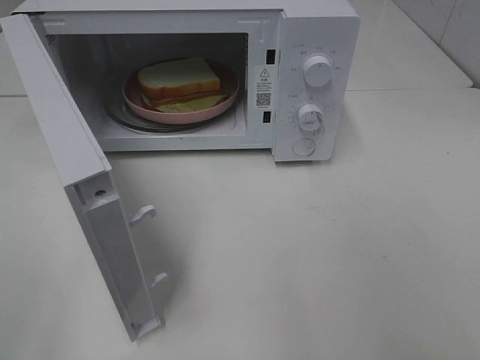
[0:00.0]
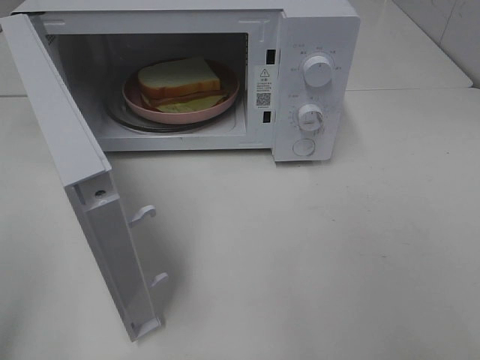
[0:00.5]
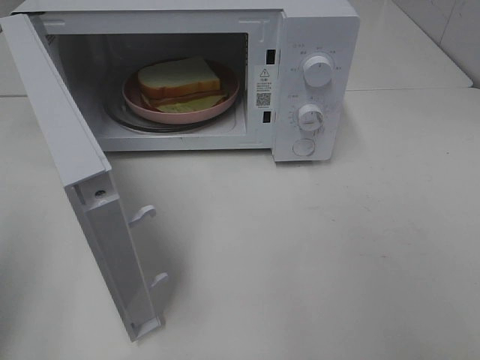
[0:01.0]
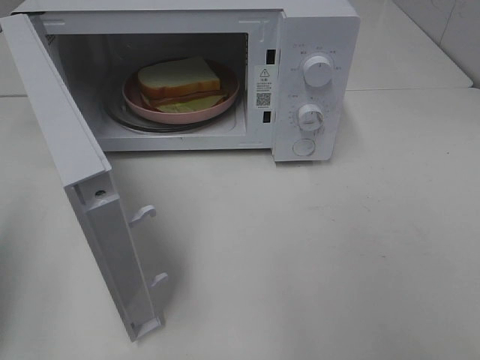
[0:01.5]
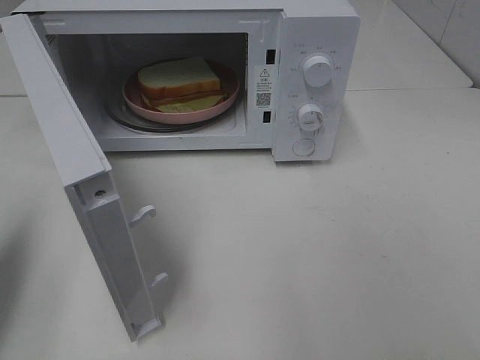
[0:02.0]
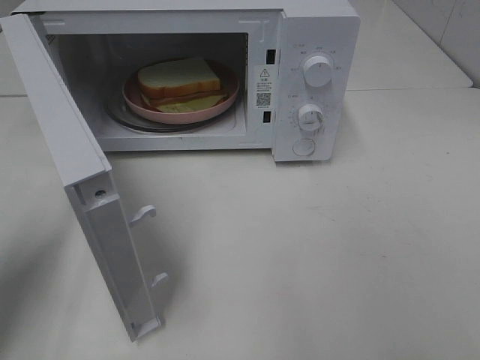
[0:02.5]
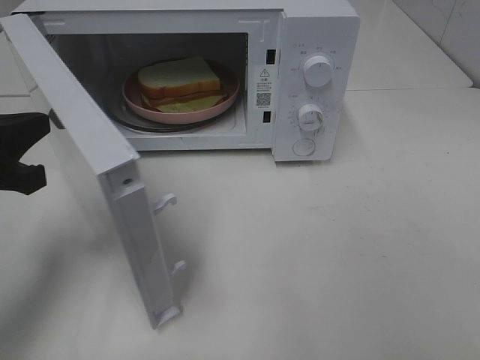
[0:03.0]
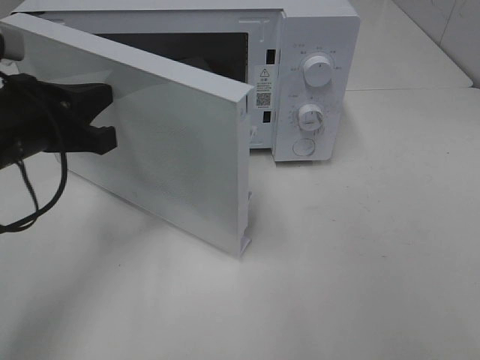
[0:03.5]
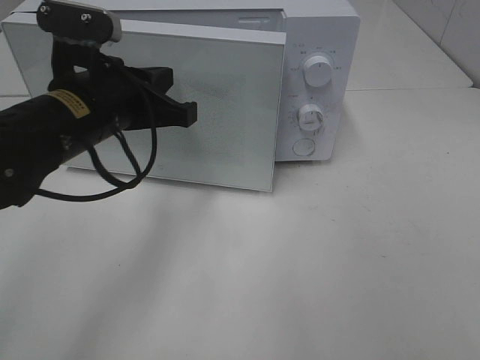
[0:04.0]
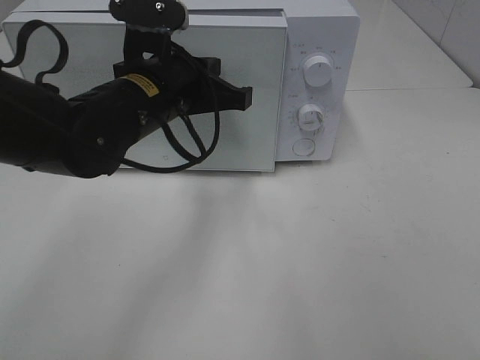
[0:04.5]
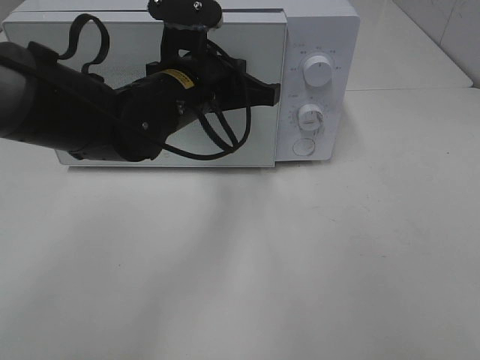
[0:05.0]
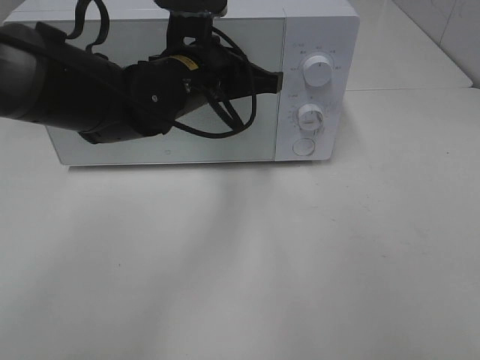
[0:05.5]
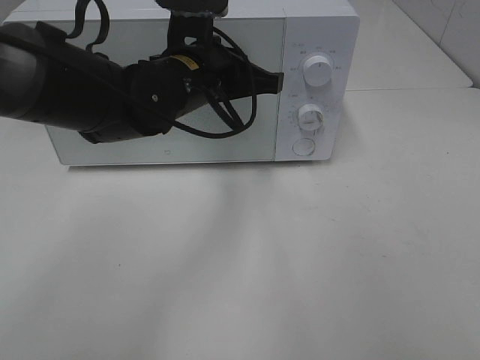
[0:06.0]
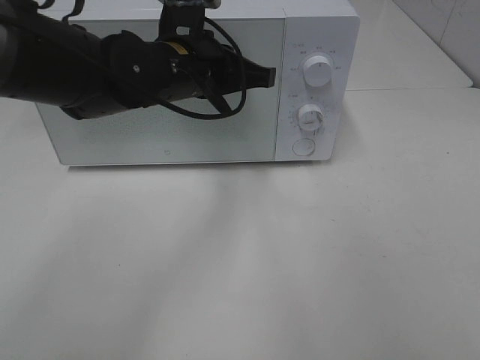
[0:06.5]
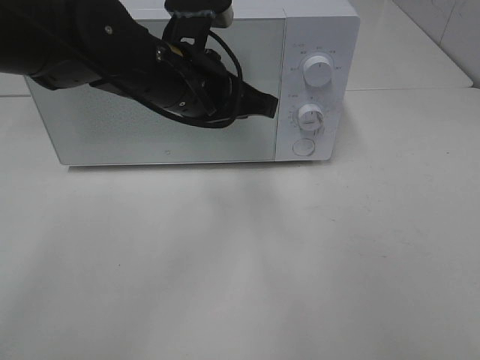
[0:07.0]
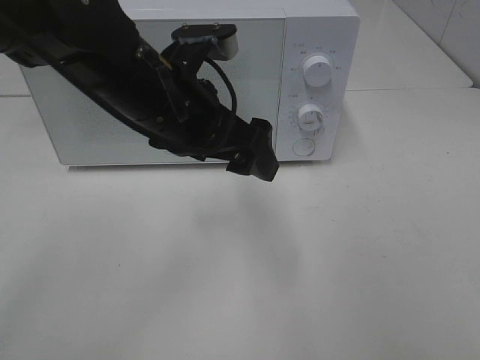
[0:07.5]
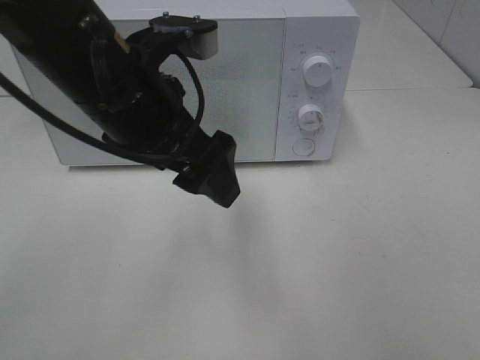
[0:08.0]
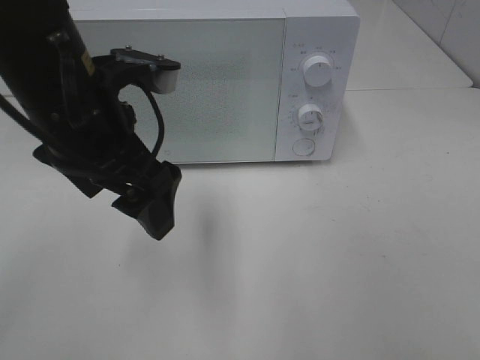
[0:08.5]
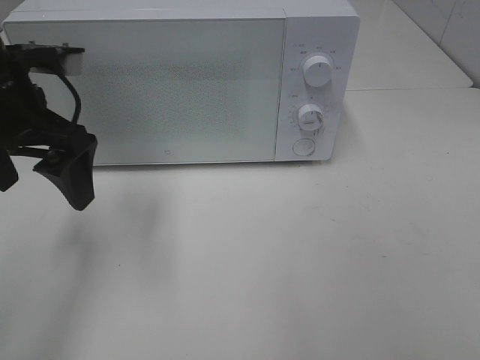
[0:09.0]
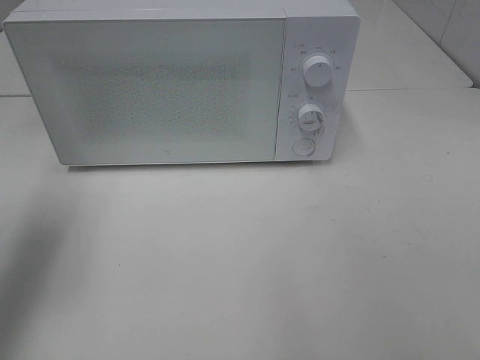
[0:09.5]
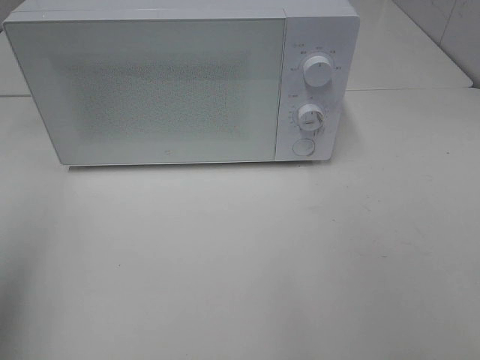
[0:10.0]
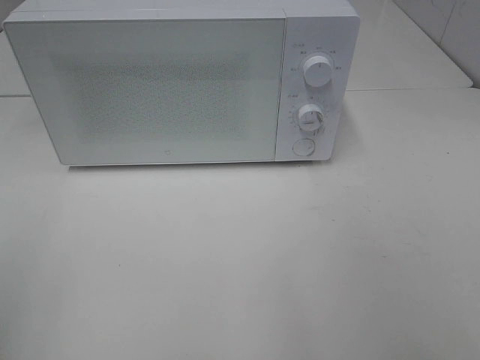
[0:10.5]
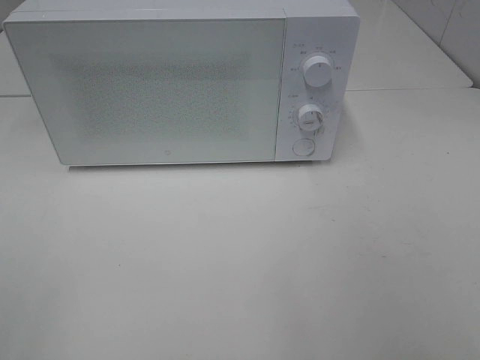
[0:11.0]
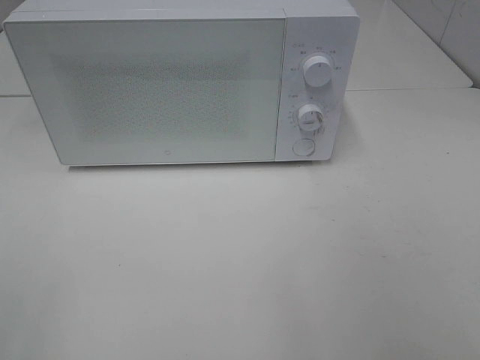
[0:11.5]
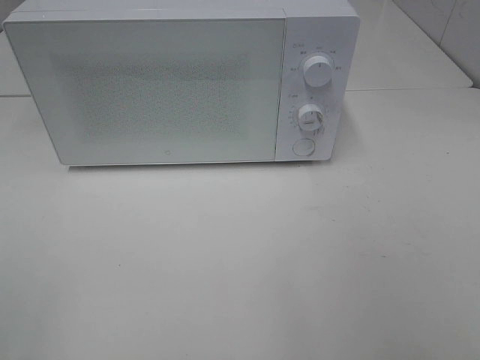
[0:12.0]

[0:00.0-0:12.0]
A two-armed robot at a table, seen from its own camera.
Task of the whole recording: Heat Sandwich.
Step, 0:00.0 to 0:07.0: Left hand: close the microwave door.
0:00.0 to 0:02.0: The left gripper heads forward, covering roughly 20 cm, and closes its fingers.
0:02.0 to 0:04.0: The left gripper travels to the right and forward by roughly 25 cm.
0:04.0 to 0:06.0: The left gripper moves to the right and forward, about 10 cm.
0:06.0 to 0:08.0: The left gripper goes approximately 10 cm backward and upward, and opens up.
0:08.0 to 0:10.0: The left gripper heads to the left and backward, covering about 25 cm.
0:10.0 to 0:12.0: The left gripper goes some 15 cm backward.

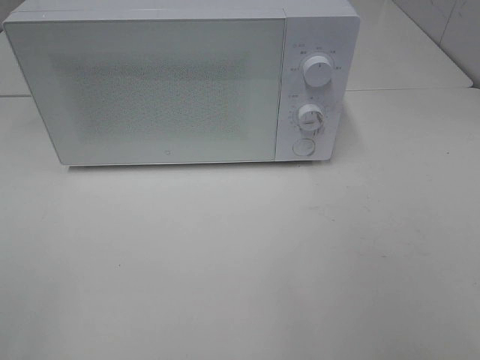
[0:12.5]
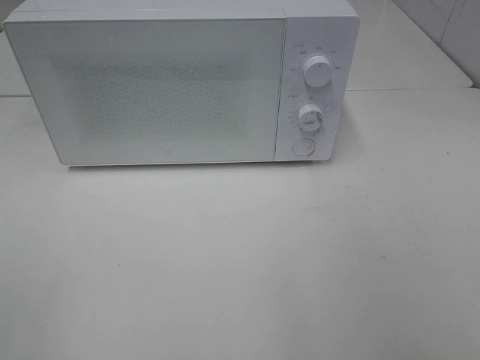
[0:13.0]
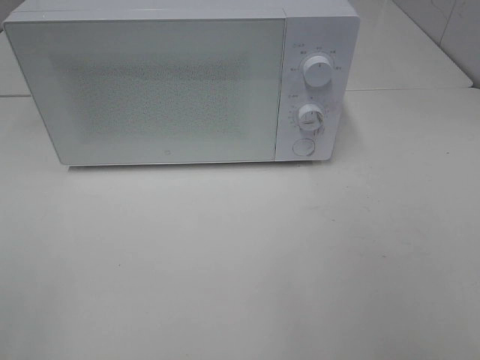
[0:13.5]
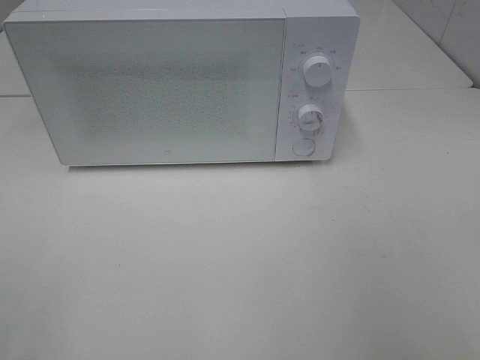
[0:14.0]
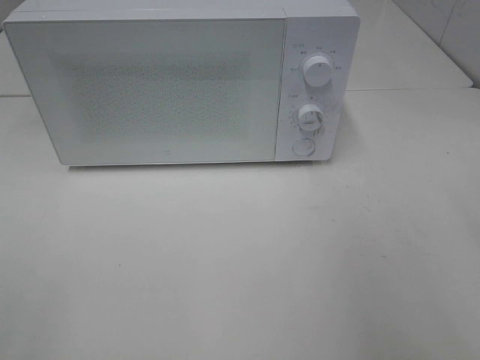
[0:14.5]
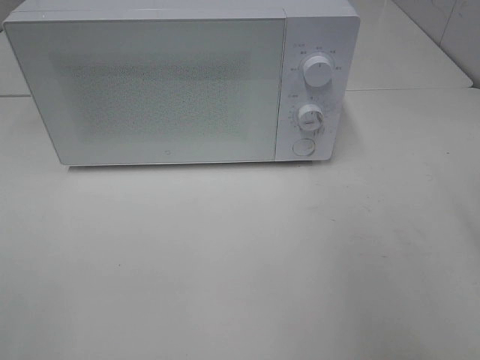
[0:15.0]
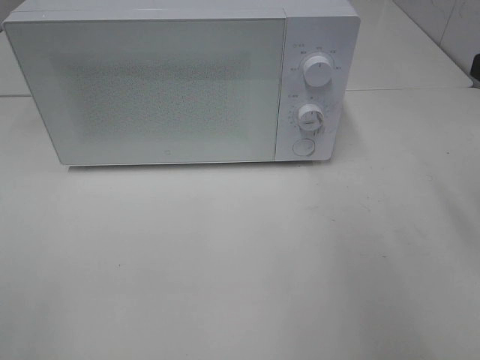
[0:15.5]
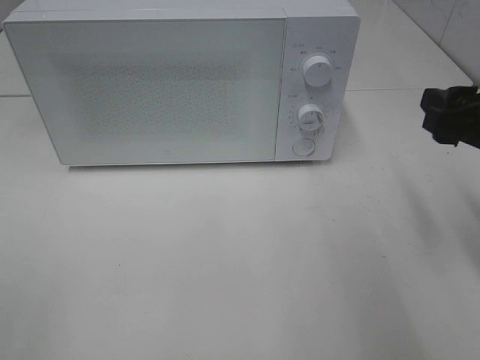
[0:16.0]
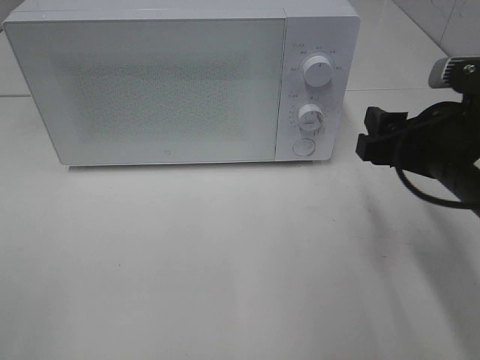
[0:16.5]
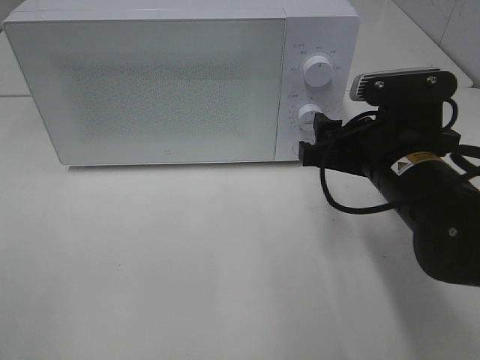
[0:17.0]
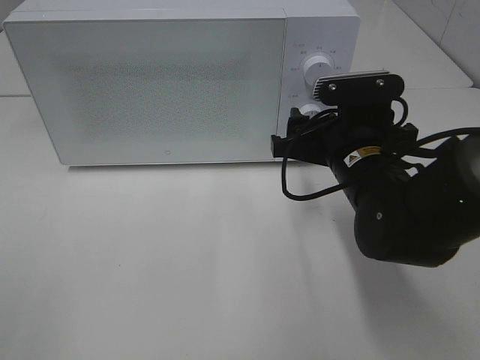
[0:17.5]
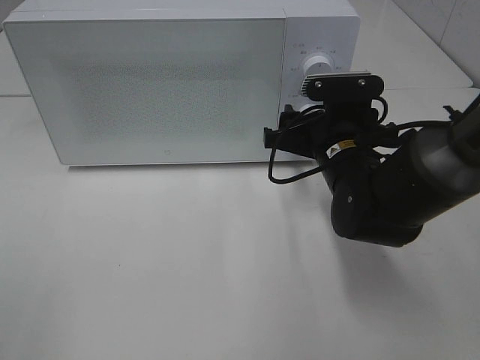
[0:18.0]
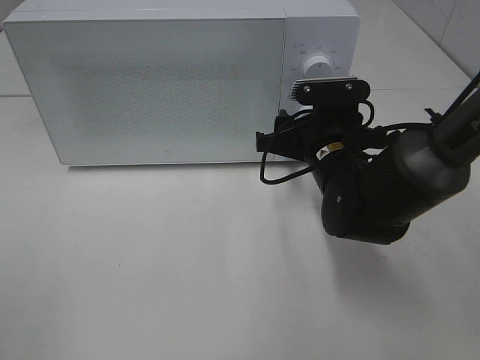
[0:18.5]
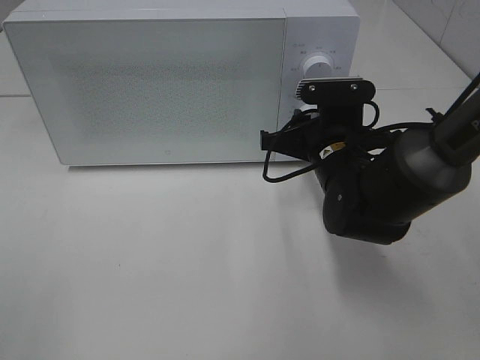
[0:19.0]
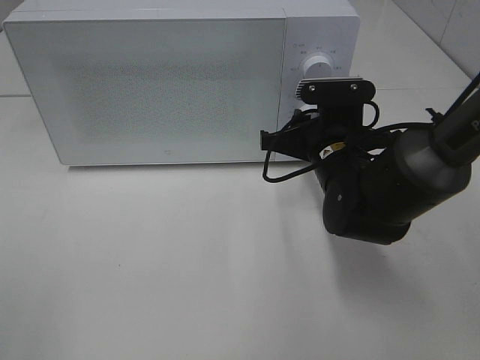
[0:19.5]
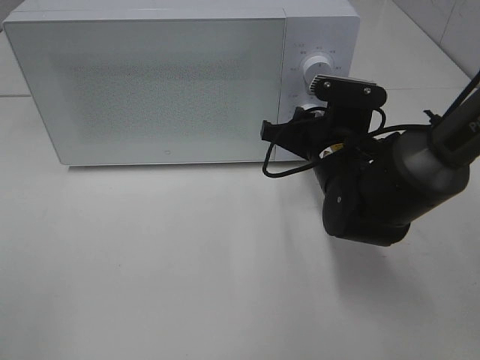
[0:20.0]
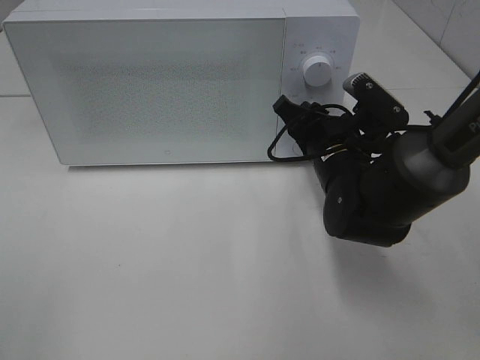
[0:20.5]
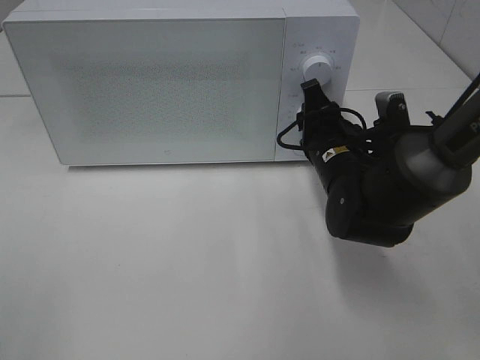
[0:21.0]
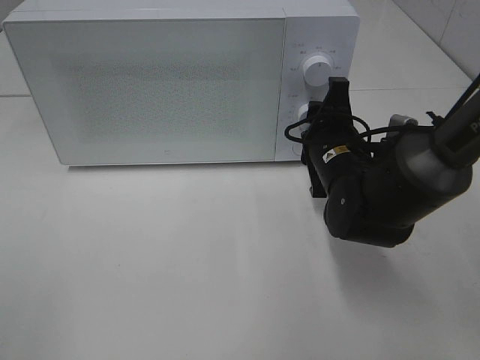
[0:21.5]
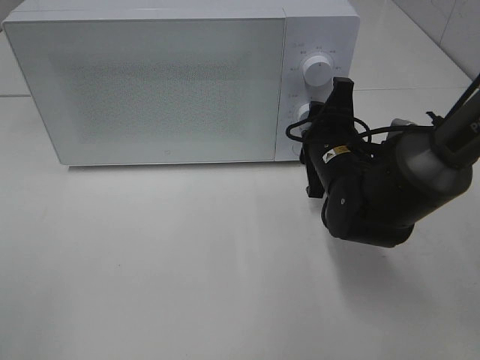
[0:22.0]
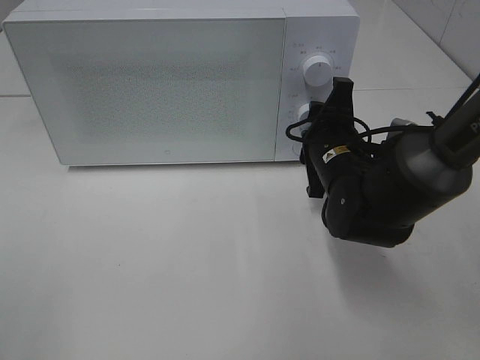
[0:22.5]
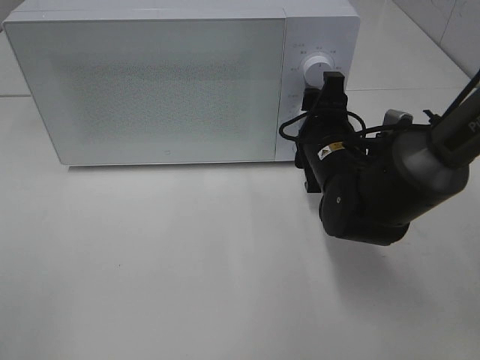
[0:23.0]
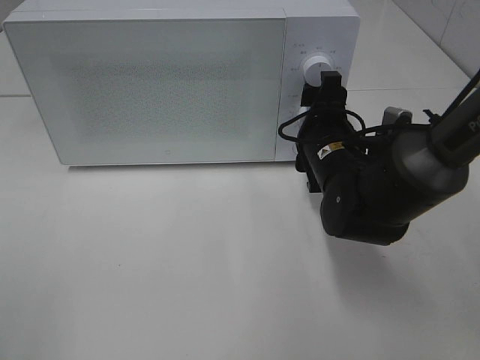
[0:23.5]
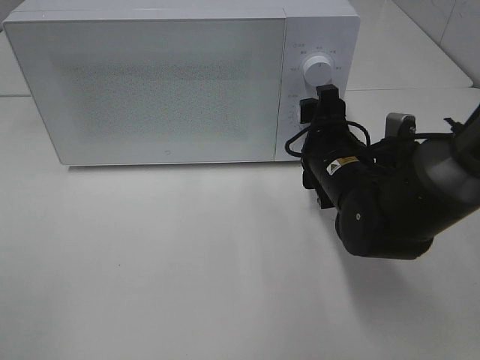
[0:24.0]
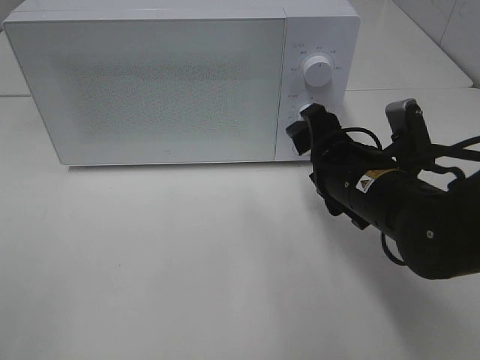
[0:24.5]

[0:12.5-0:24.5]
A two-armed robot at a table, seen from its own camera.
Task of the whole recording: Heat Sandwich.
Step, 0:12.5 to 0:23.5: Right hand: twist timer button.
0:14.5 to 0:16.5: The right gripper moves downward, forward and to the left, roughly 20 cm.
0:16.5 to 0:18.5: The right gripper shifts some 15 cm forward, to the left and downward.
0:22.5 to 0:24.5: The right gripper is displaced backward by approximately 5 cm, and opens.

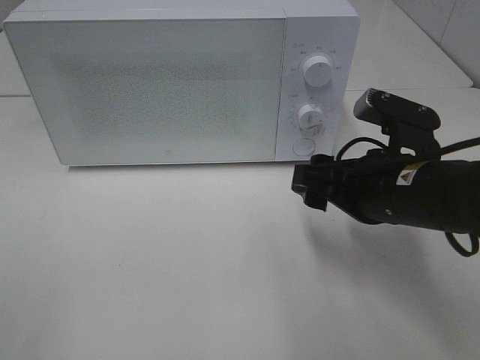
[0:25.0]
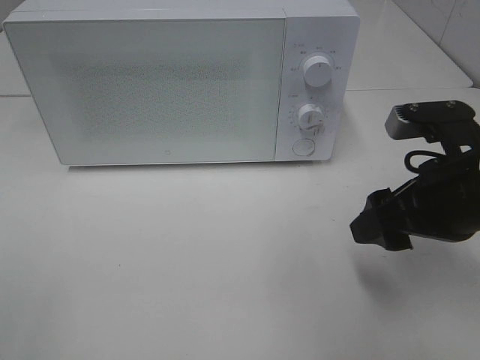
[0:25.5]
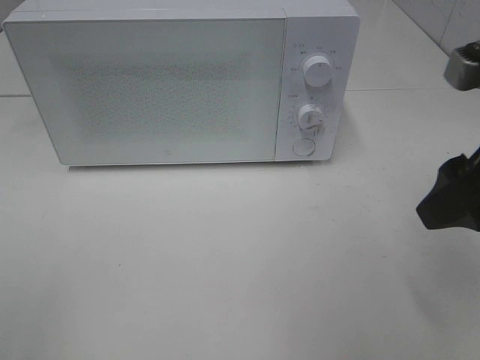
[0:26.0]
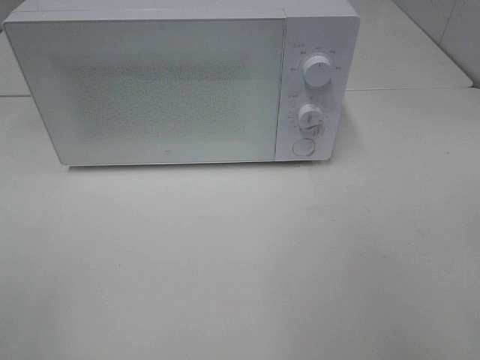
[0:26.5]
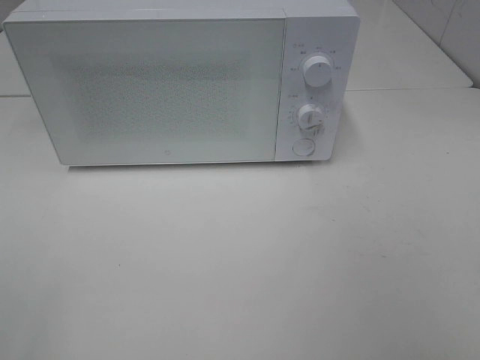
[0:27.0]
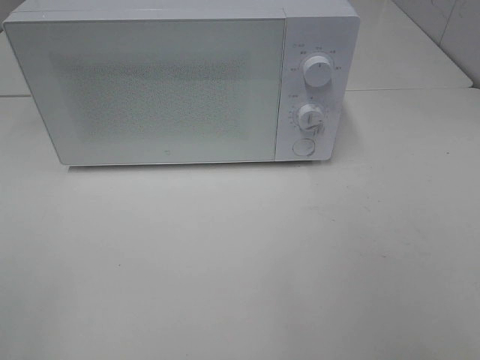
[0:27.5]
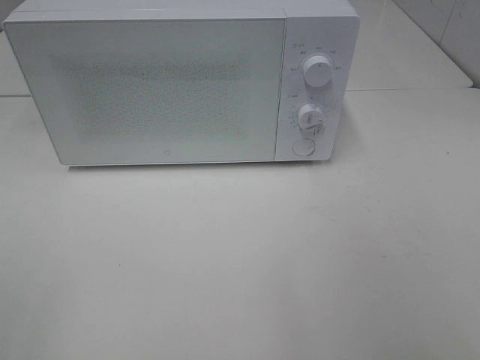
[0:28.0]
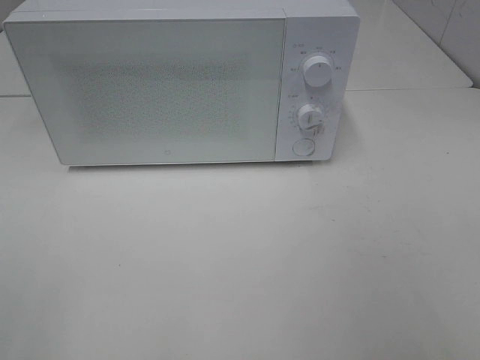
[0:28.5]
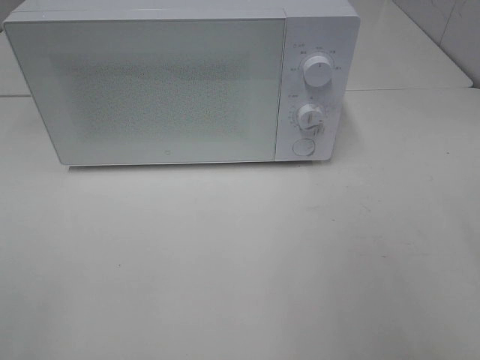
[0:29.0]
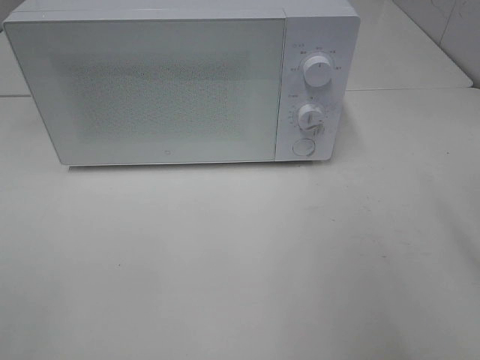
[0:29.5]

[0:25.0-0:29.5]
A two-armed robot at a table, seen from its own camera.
Task of the whole recording: Heat Sandwich.
0:25.0 to 0:27.0: The right gripper moves backward, upward and to the right, roughly 30 cm.
